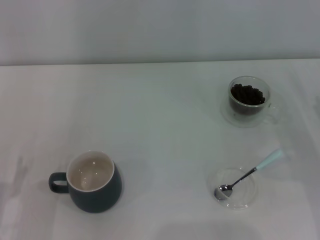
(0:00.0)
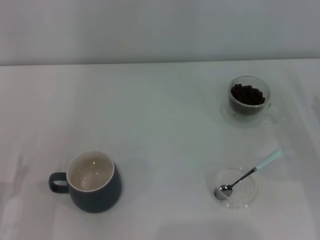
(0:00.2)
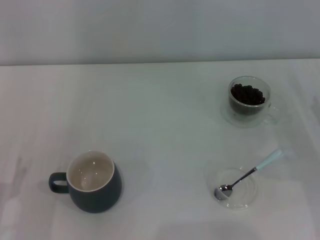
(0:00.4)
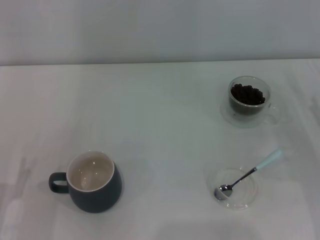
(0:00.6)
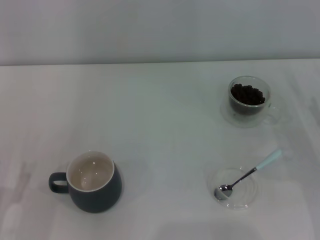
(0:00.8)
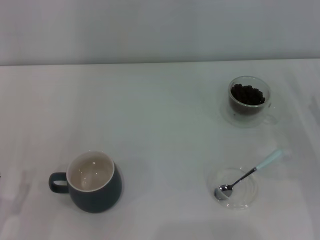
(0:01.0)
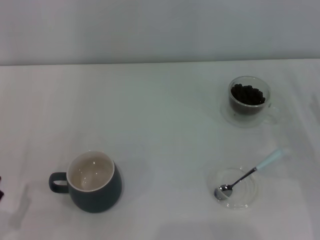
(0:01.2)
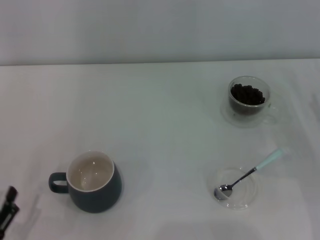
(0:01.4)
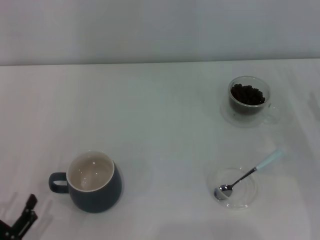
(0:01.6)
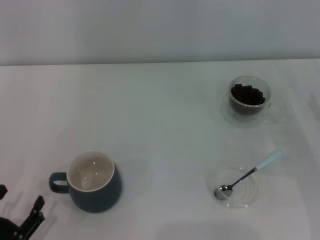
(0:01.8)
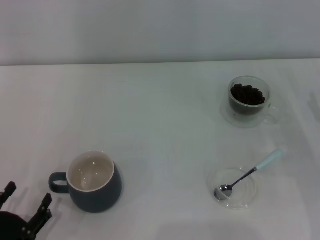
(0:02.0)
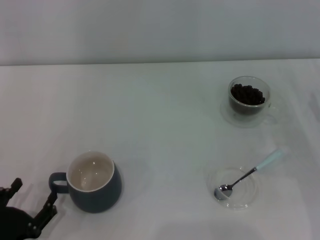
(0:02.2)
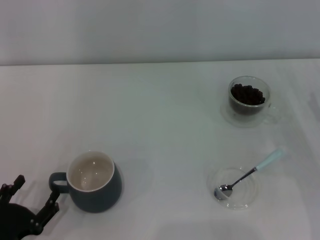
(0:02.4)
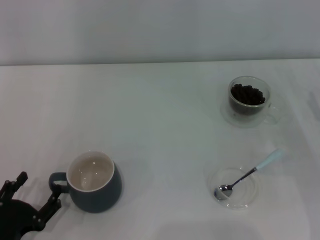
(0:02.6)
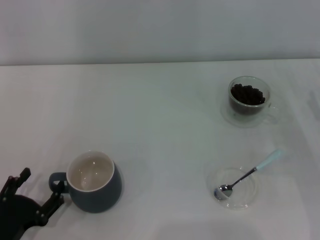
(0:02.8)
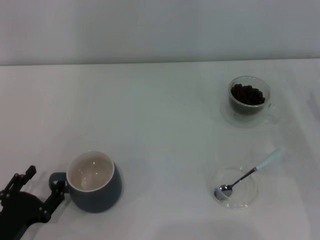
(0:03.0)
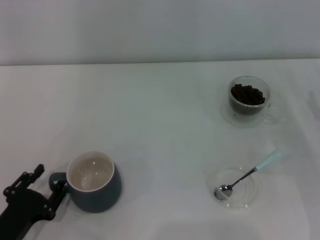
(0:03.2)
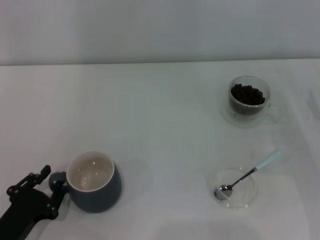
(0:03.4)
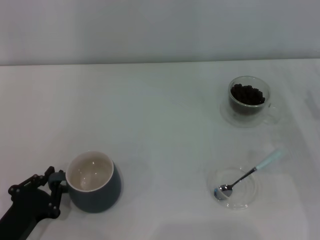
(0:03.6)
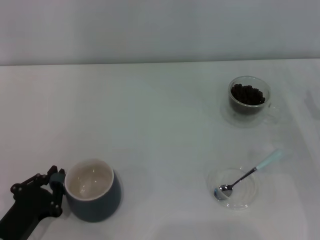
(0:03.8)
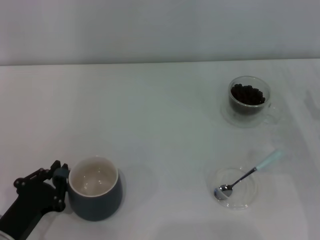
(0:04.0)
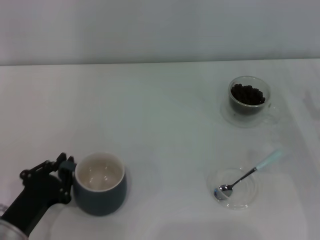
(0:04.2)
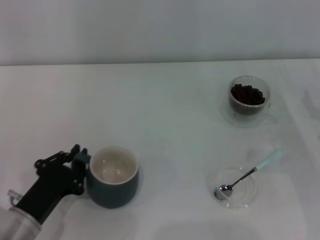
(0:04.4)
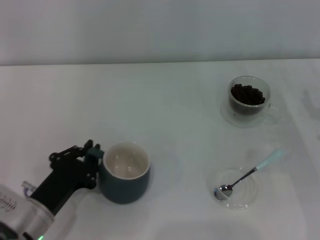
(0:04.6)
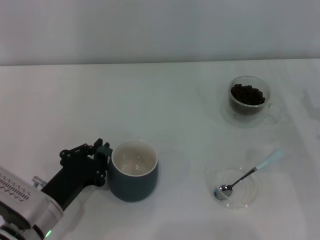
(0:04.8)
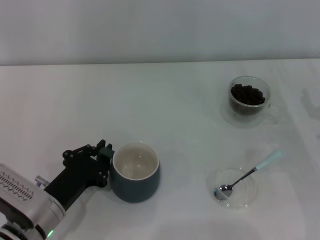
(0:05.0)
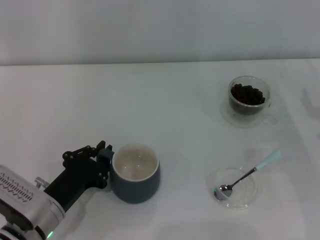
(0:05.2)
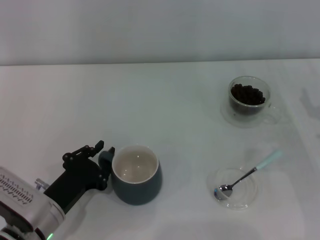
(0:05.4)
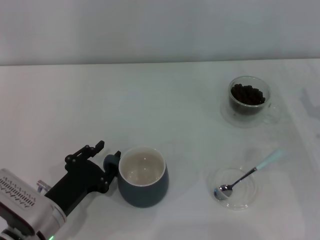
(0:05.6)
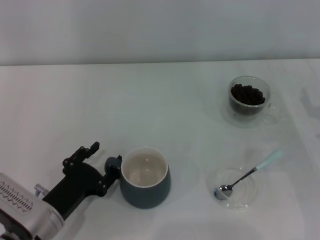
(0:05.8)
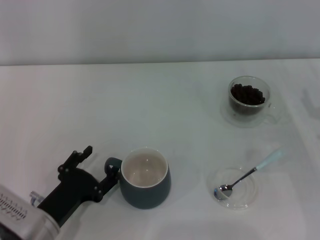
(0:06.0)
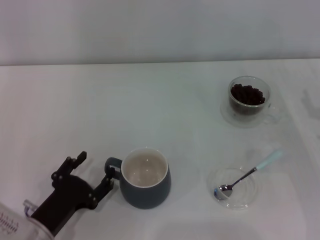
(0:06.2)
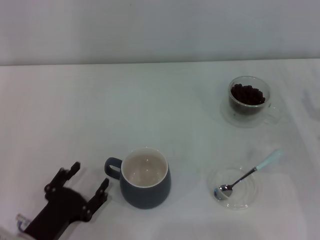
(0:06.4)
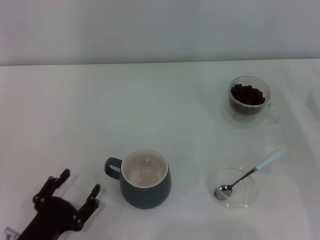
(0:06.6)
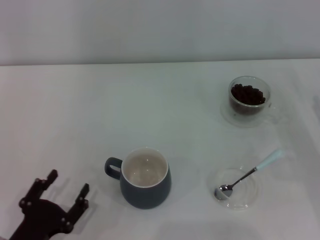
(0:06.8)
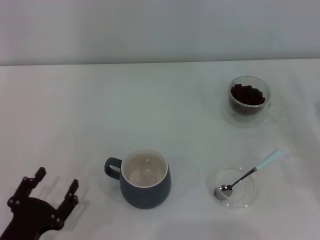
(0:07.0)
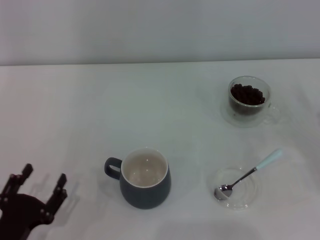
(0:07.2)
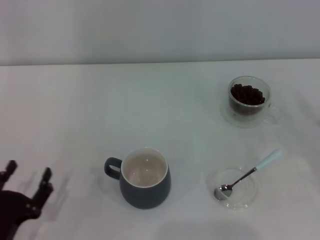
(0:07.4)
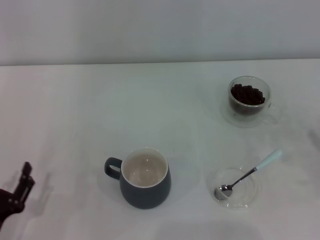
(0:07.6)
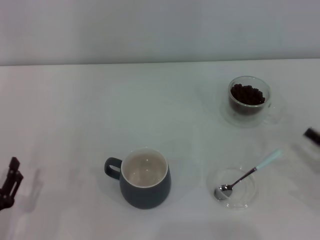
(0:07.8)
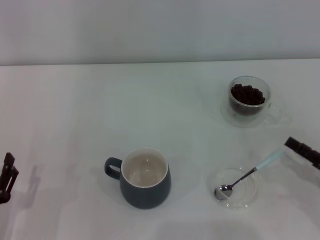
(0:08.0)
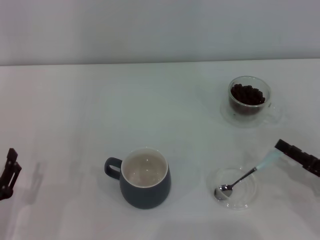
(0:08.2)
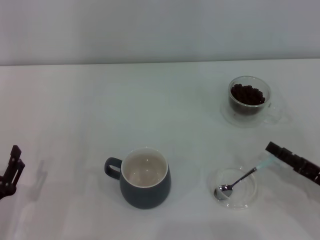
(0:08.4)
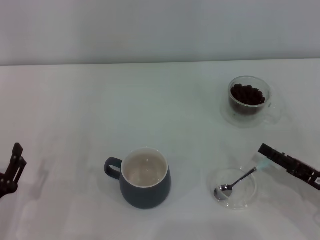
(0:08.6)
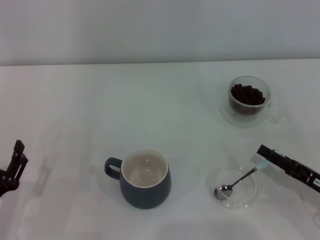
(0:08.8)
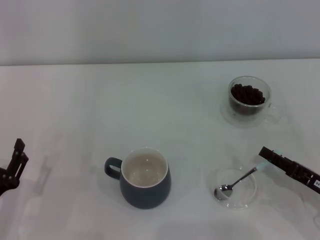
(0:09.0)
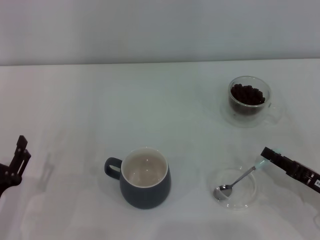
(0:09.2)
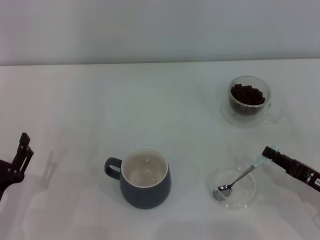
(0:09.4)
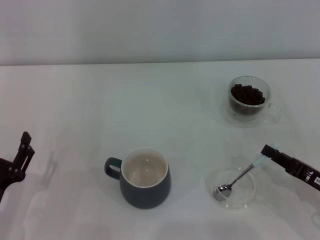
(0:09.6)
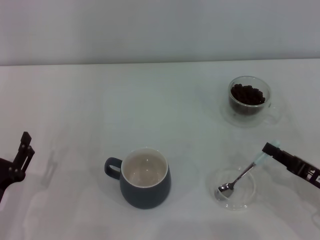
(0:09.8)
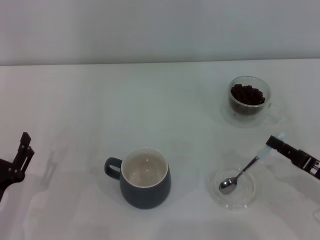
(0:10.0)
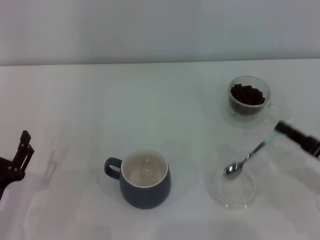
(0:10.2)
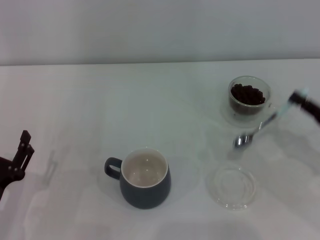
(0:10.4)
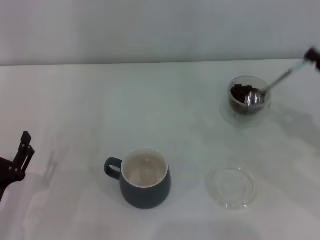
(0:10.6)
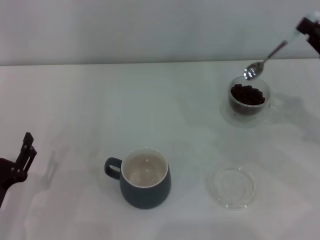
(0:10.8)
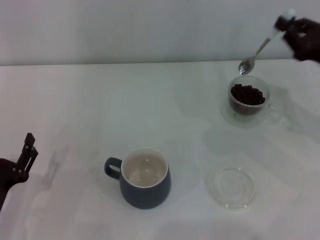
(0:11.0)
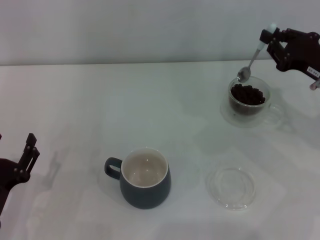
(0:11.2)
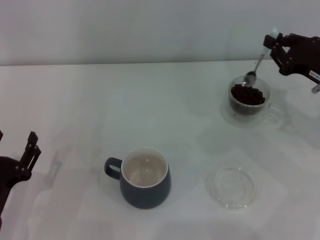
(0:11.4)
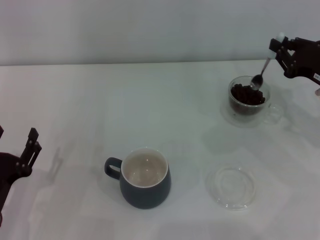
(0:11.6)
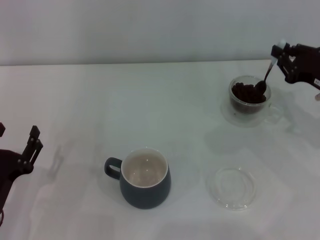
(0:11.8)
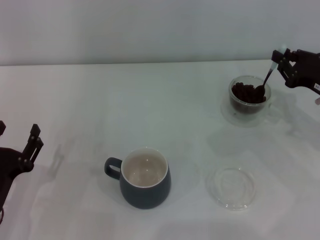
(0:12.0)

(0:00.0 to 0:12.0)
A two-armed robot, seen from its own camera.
Task of the whole recording: Use a blue spoon to take out the coffee beans from the glass and pour them into the gray cup.
Step, 0:00.0 - 0:06.4: Move the cup to the center of view with the left gripper.
Step, 0:06.6 - 0:10.2: Pick up the spoon with the right gripper.
0:00.0 - 0:01.6: The left gripper heads backward, covering about 5 cm.
0:01.6 - 0:03.0: The left gripper goes approximately 5 cm forward.
0:03.0 - 0:04.4: The left gripper changes place by approximately 5 cm, and closes up.
0:04.4 - 0:06.0: The left gripper opens.
0:06.0 - 0:07.6: The left gripper goes some 10 cm backward and to the left.
0:07.6 - 0:09.0: The right gripper is displaced to the left by roughly 10 cm.
0:09.0 - 0:10.4: The right gripper shifts about 5 cm upward, and closes its fingers.
0:10.4 - 0:12.0: The right gripper travels forward by some 10 cm.

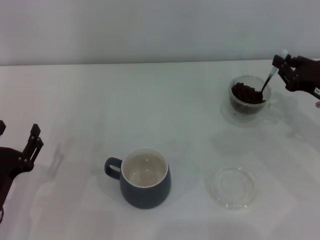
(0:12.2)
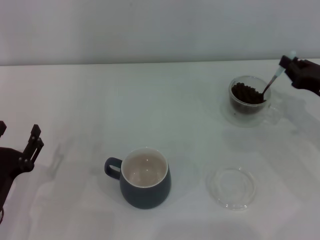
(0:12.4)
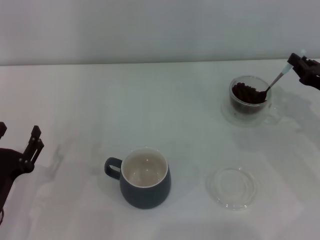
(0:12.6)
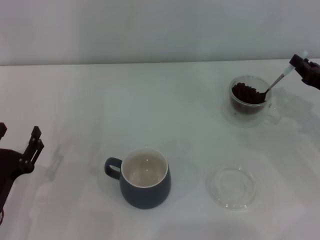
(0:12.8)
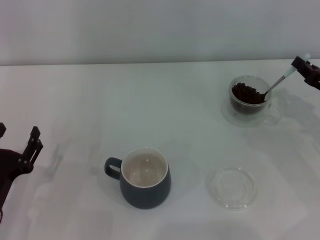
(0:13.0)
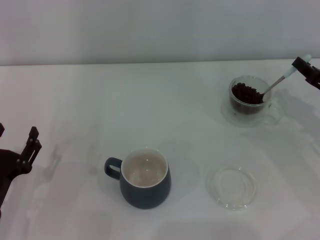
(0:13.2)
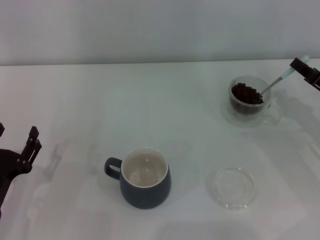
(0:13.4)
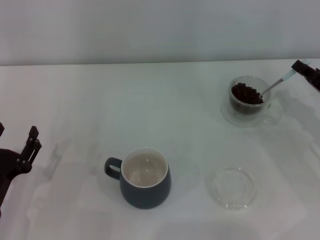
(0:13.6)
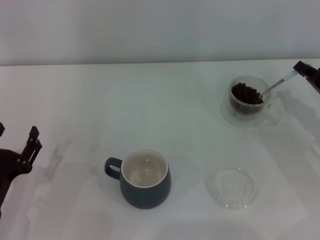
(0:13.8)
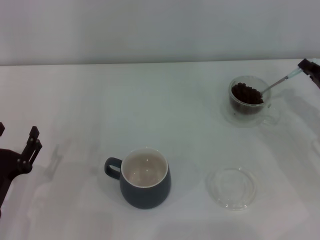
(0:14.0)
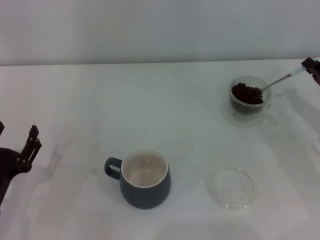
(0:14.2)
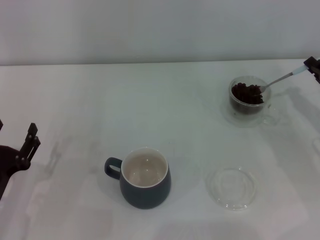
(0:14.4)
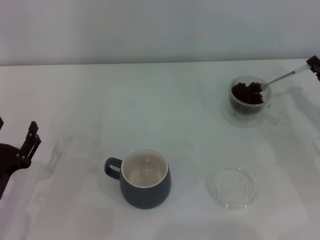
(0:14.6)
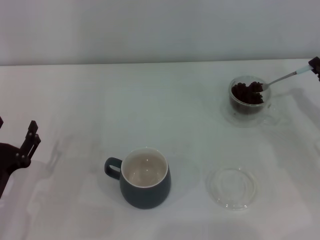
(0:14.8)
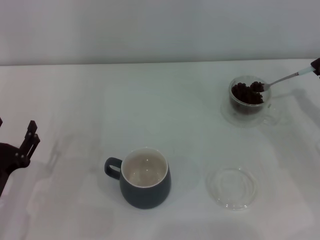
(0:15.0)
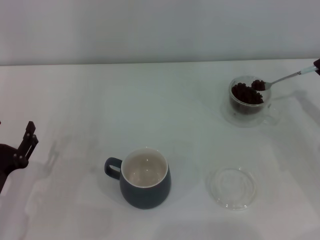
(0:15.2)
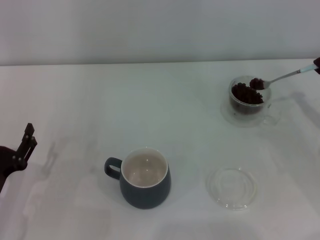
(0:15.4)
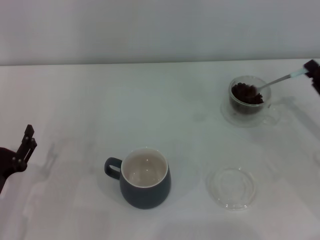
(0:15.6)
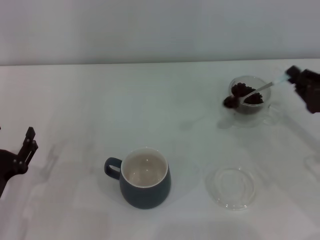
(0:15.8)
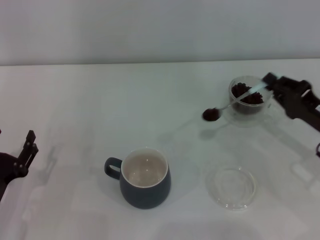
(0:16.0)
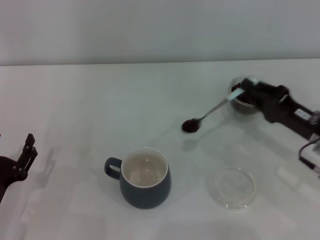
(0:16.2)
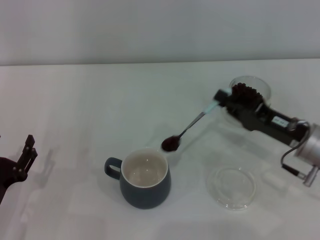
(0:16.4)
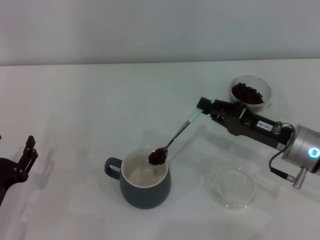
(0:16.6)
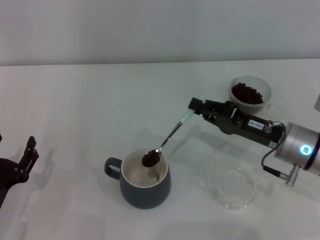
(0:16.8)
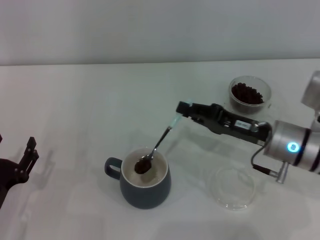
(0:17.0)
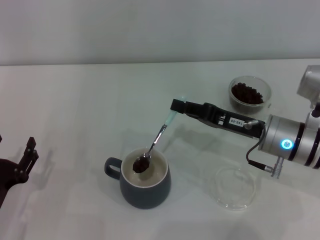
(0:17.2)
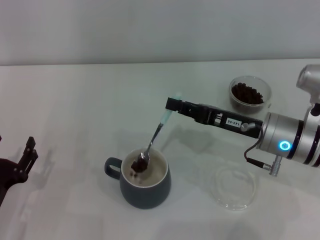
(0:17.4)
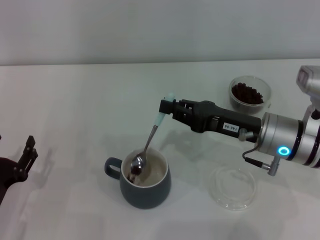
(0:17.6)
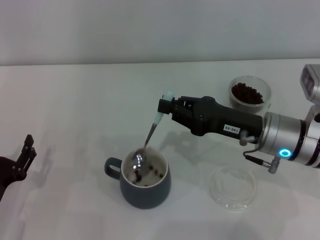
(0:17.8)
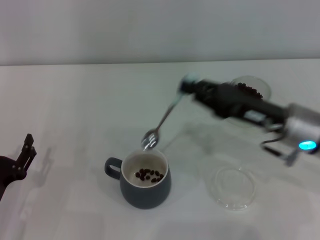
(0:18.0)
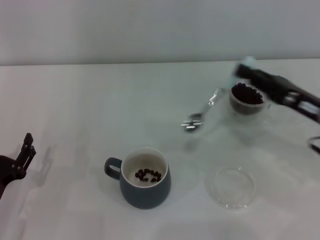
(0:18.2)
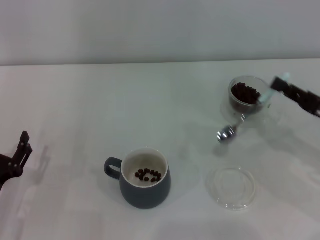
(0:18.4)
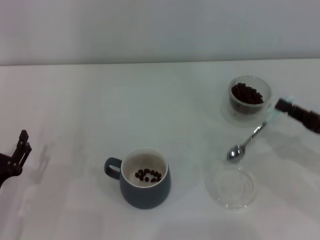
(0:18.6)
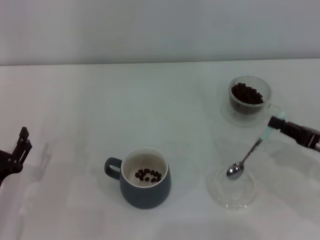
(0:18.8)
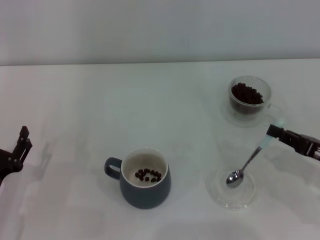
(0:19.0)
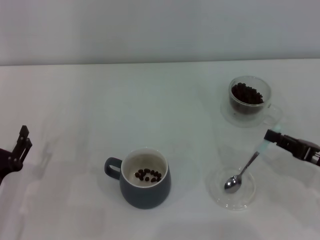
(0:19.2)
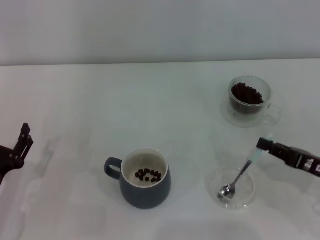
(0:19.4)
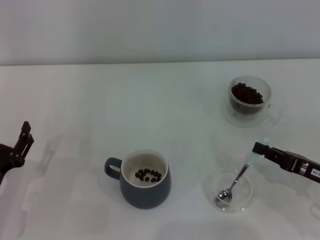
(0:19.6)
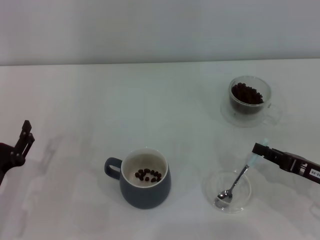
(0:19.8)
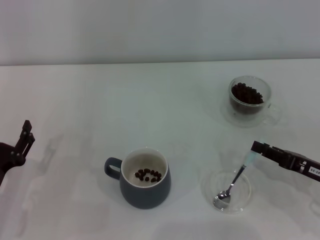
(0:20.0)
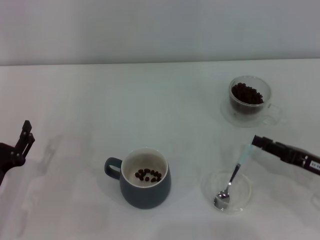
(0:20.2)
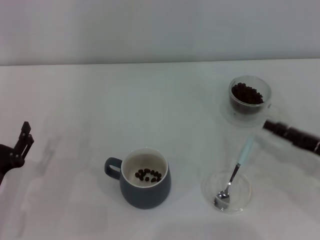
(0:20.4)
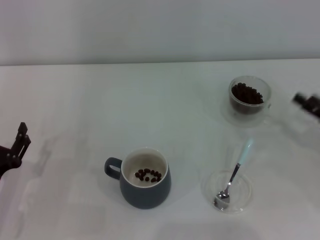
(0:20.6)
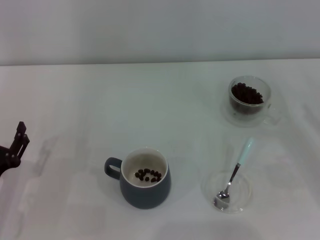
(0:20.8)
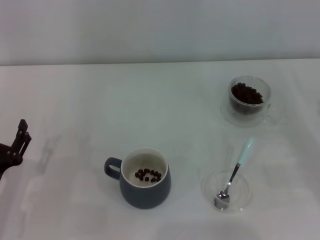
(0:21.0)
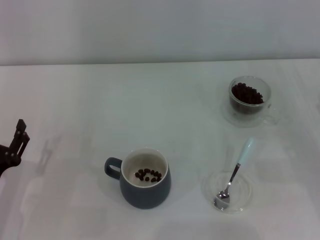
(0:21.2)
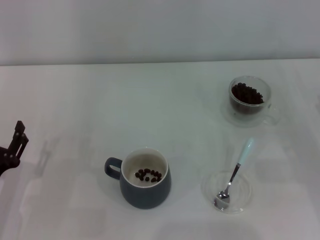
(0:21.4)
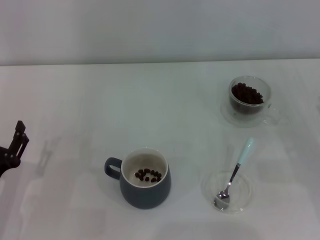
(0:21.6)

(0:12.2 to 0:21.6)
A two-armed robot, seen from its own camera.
Task of the whole recording: Use a blue spoon to take out the coffee beans from the glass and pour them into the gray cup.
Step, 0:12.2 - 0:17.6: Scoop a spoonful of beans into the cup with the right gripper.
Step, 0:17.8 - 0:20.0: Place the spoon back in its original place with the right gripper.
0:15.4 - 0:17.0: The right gripper moves to the left, about 15 cm.
0:17.0 - 0:18.4: The right gripper heads to the right, covering roughly 10 cm.
0:18.4 - 0:20.0: The right gripper shifts some 5 cm downward.
0:20.0 - 0:21.6: The right gripper travels to the right by approximately 5 cm, and opens.

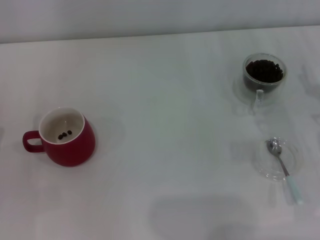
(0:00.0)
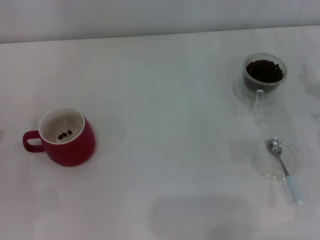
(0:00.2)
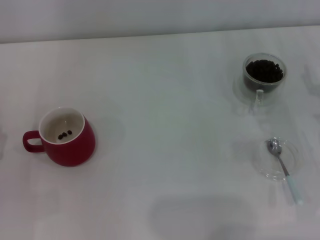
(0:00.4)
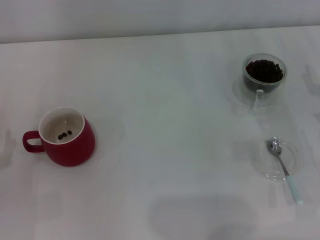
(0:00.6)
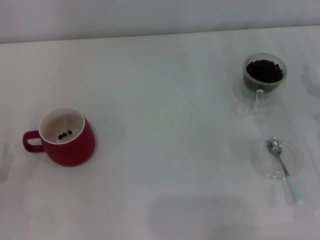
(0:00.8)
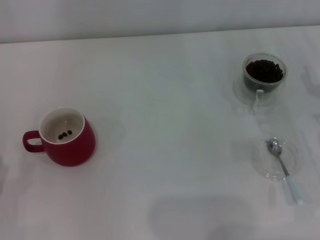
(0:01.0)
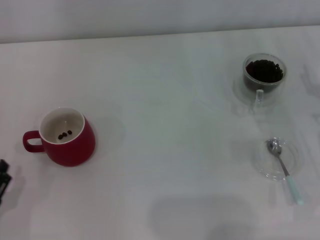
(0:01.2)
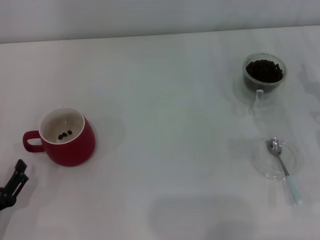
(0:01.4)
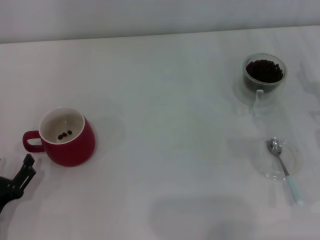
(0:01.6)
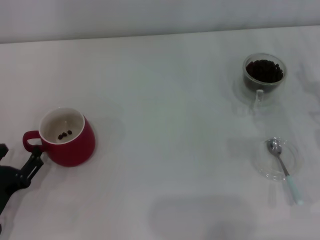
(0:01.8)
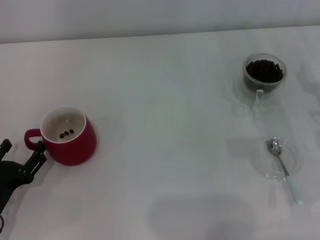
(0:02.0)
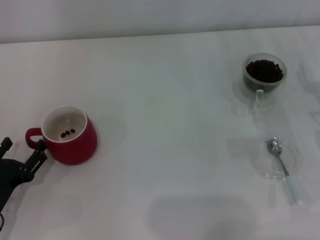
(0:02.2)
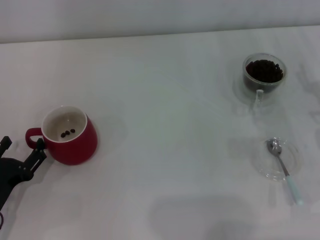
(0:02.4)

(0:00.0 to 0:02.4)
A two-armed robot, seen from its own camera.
Task of the whole recording: Use a blue spoon to take out the coffee beans from the glass and pour them into the red cup.
0:01.2 - 0:02.4: The left gripper shifts roughly 5 cm forward.
